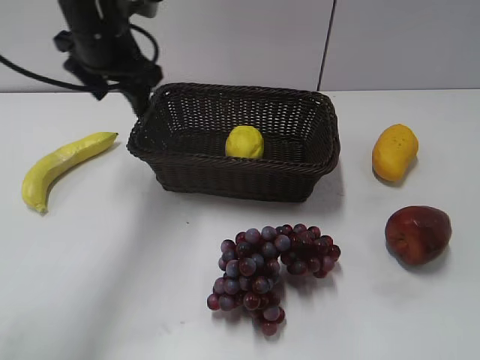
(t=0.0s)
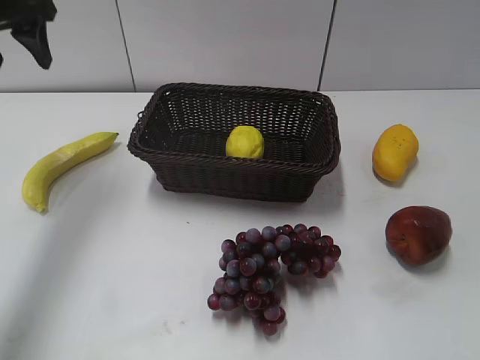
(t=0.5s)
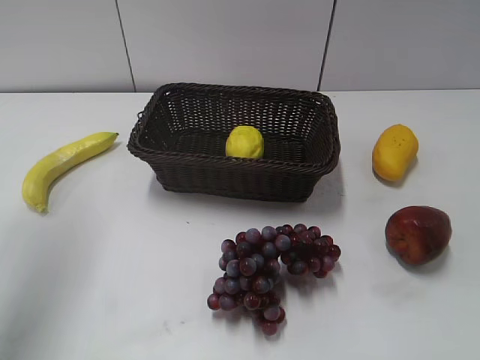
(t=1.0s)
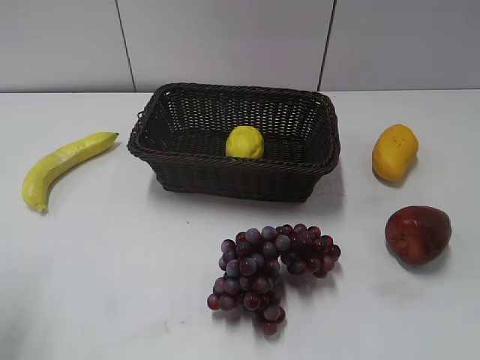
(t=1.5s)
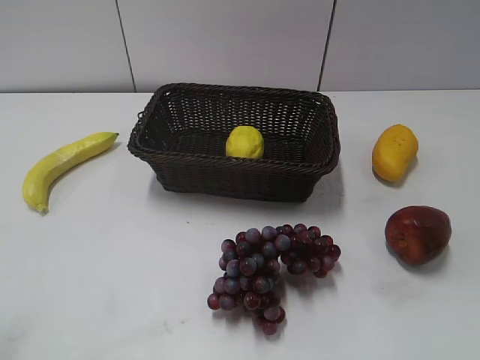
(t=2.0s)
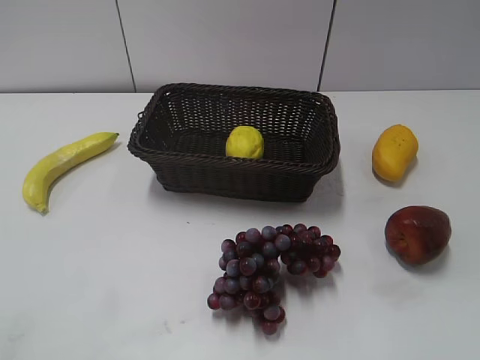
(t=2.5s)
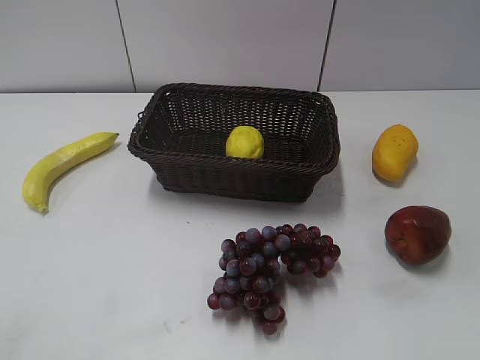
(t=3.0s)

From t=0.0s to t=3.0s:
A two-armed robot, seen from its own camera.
From t=0.0s to t=1.5s: The left gripper travels backward and to the left by roughly 30 cm, and closes its fingers.
From t=1.5s to t=3.0s: The left gripper shifts some 20 cm backward.
